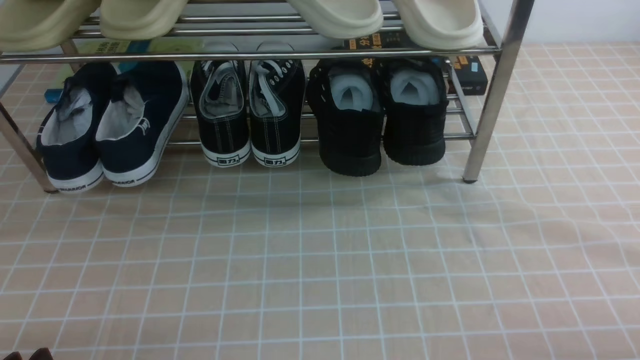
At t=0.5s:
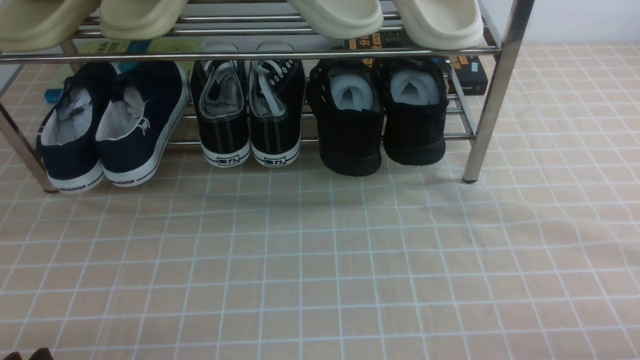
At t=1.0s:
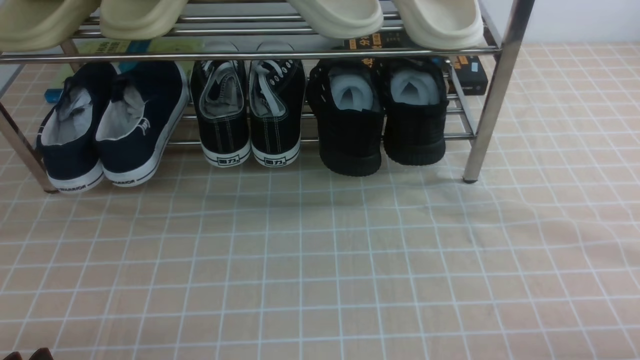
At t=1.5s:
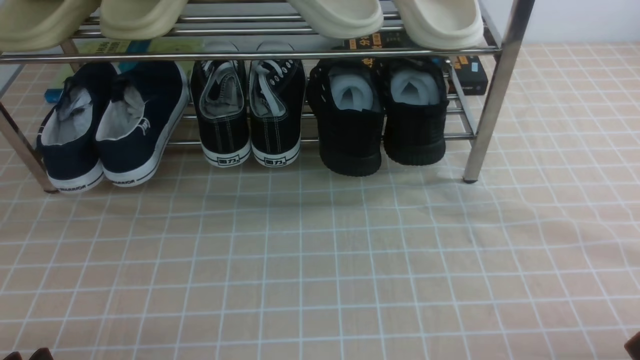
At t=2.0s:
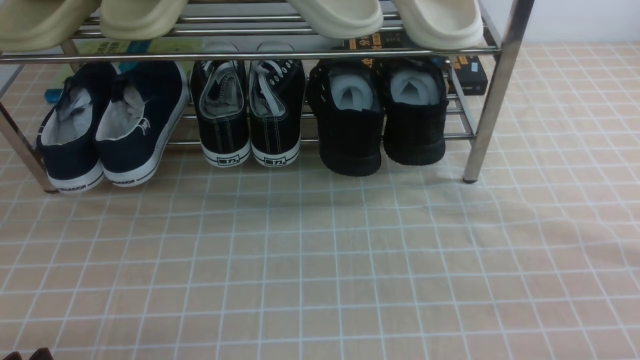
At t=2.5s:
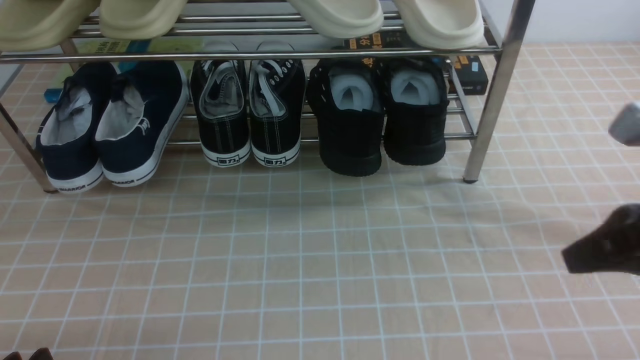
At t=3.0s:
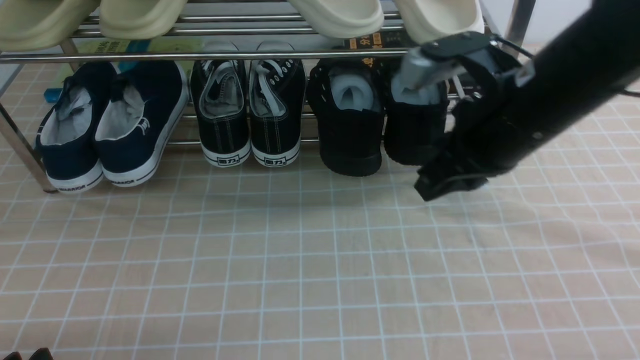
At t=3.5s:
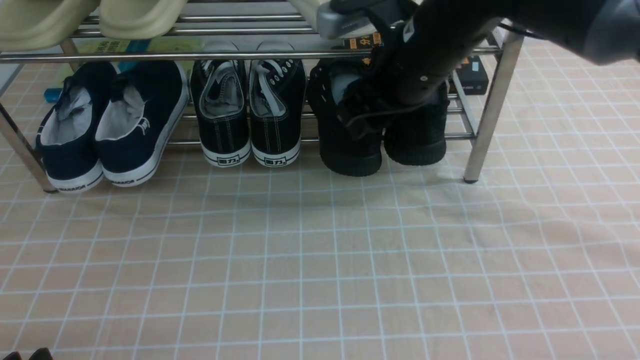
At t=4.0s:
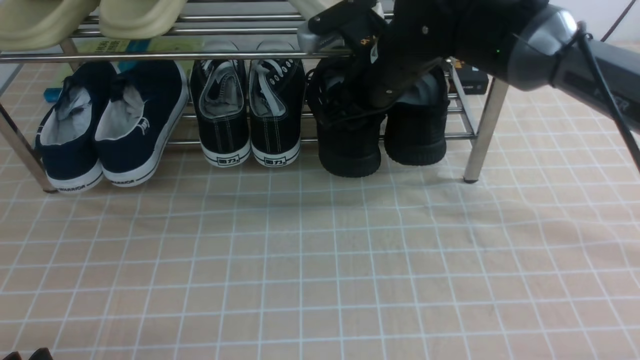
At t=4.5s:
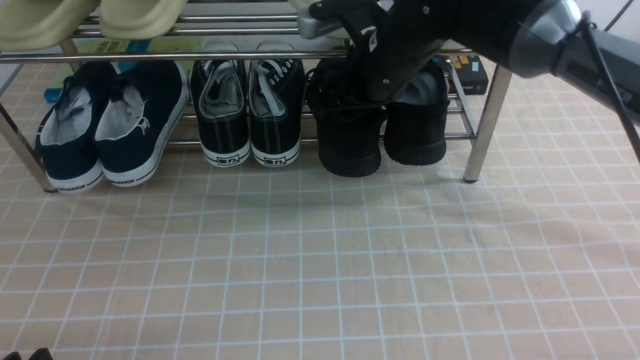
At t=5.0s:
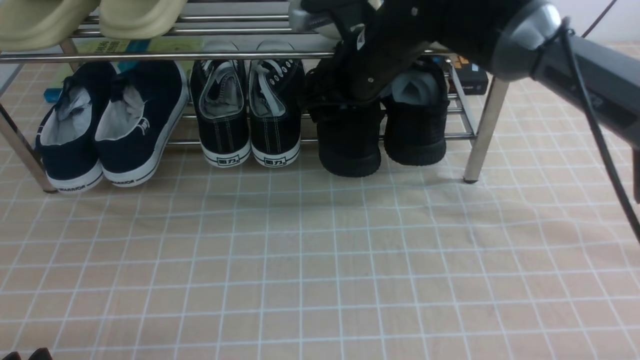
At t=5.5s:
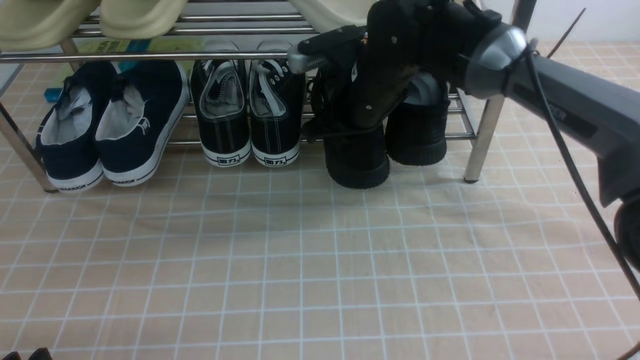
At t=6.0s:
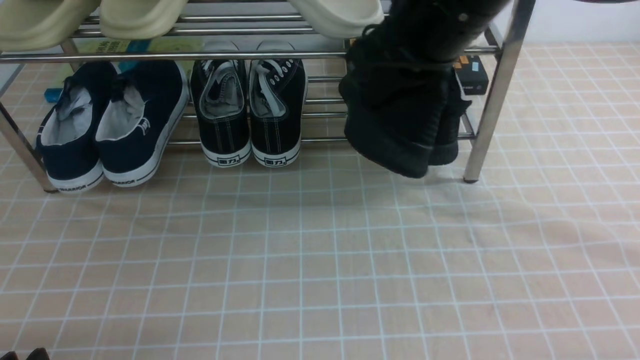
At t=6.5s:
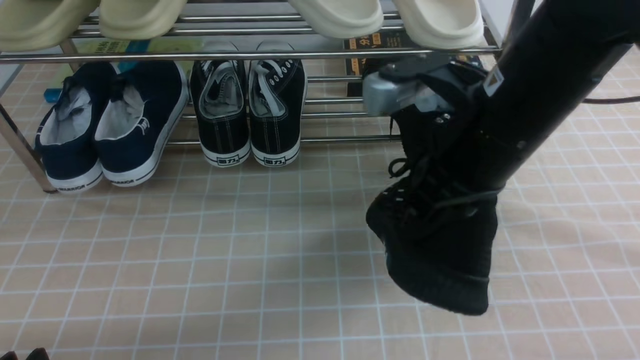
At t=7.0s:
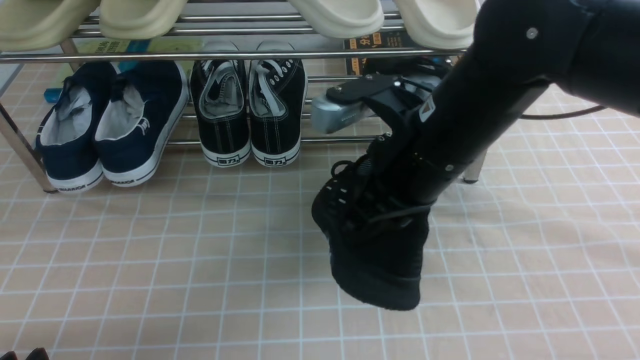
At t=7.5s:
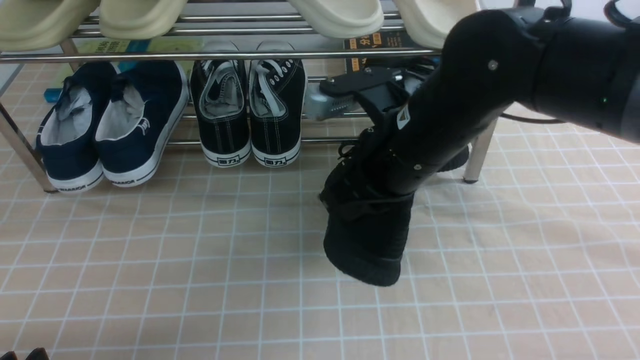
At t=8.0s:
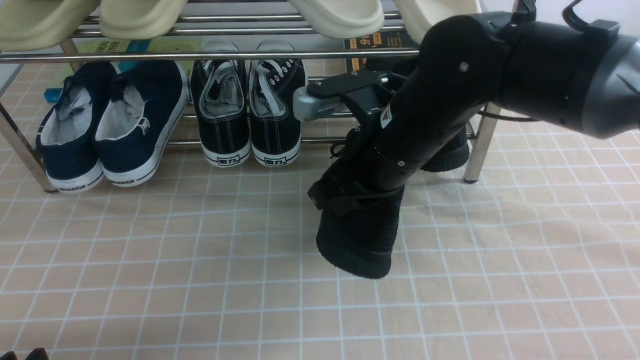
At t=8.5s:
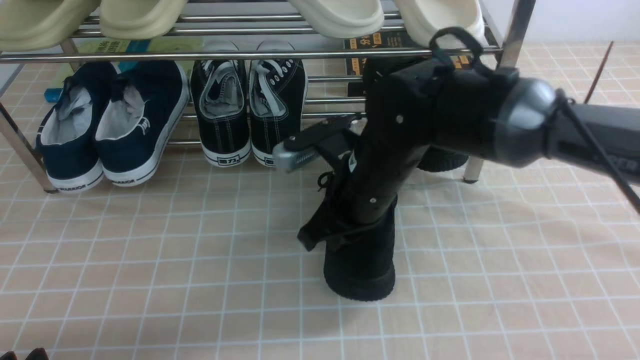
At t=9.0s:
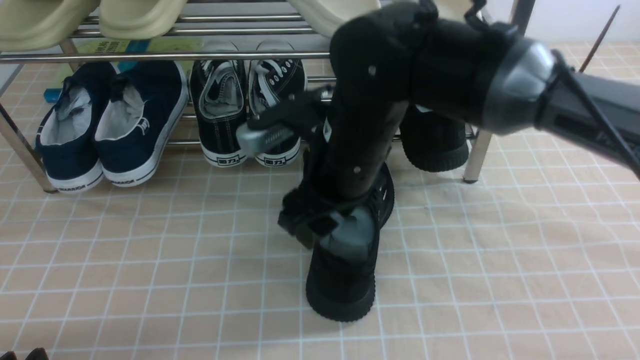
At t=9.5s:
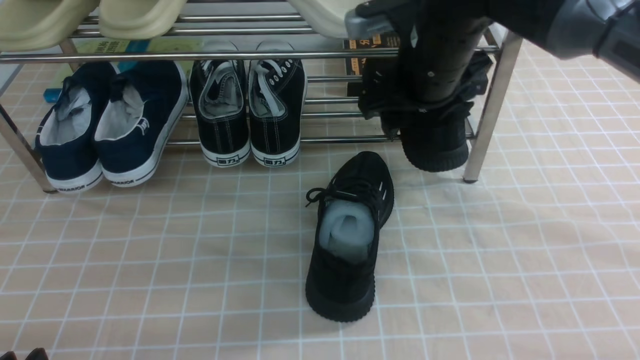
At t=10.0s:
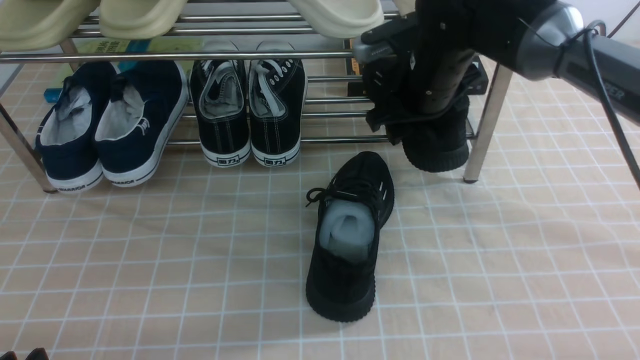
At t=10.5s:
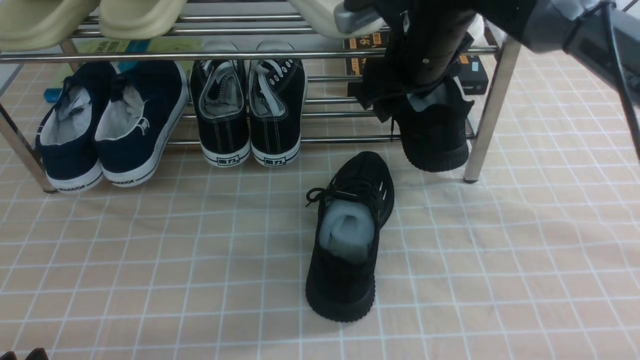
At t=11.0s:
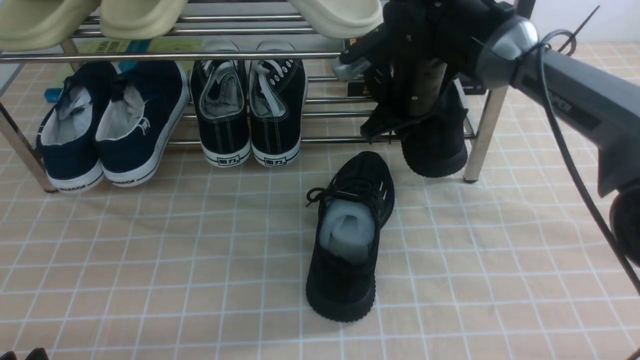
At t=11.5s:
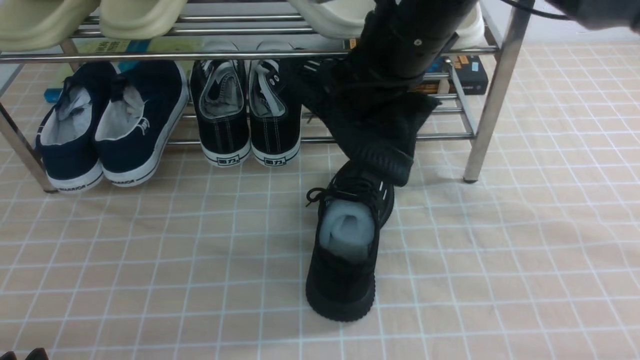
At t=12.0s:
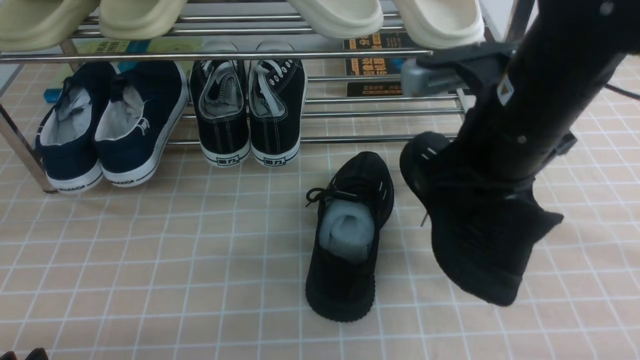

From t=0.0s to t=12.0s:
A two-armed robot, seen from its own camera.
Step, from t=0.0s to t=5.0s: use the right arm to clamp a shoe on the right side of the shoe rack.
Step, from t=5.5s to t=8.5s: use the right arm to take out the clamped shoe from the shoe rack and put it down.
Step, from t=9.0s to t=11.0s: use the right arm to clamp a shoe on the right side of the shoe rack.
From t=2.0s to t=4.0s: The right gripper is displaced forward and to the left by about 40 cm, and opens its fingers.
From t=4.0s to t=6.0s: The right gripper heads upward and backward, covering some 10 cm, and closes.
From t=6.0s to t=8.0s: The right gripper shifts roughly 10 cm downward.
From t=8.0s to t=10.0s: The right gripper goes roughly 10 cm forward, and opens.
From t=10.0s to t=12.0s: The right gripper goes approximately 15 cm backward and upward, and closes.

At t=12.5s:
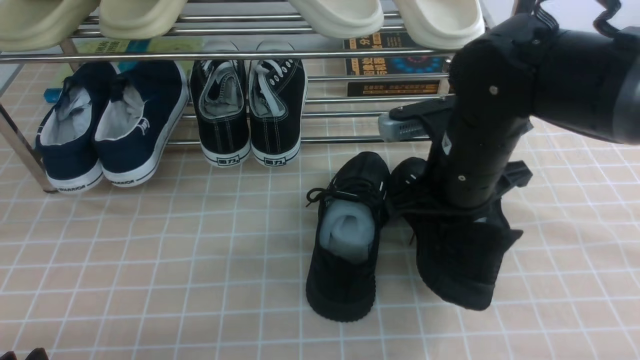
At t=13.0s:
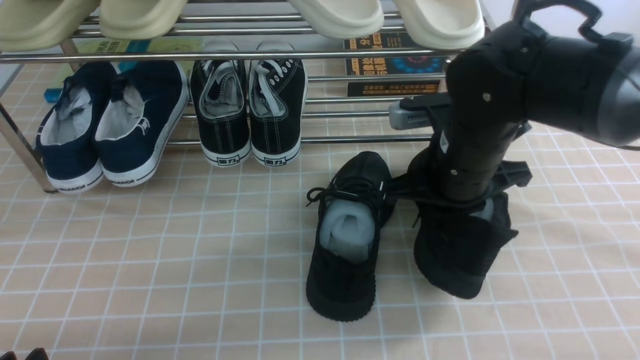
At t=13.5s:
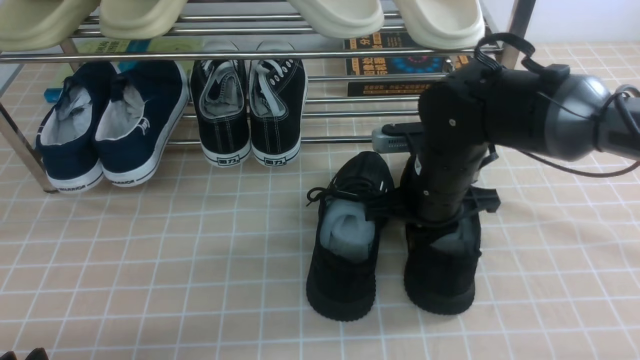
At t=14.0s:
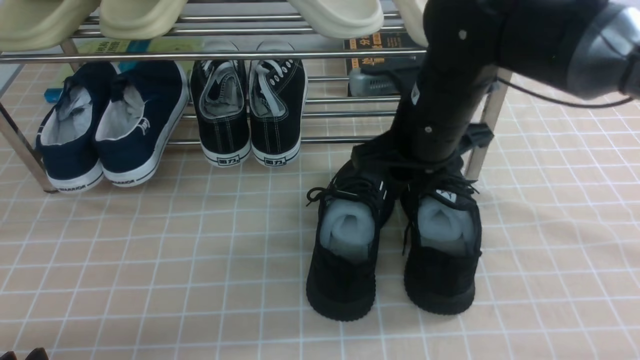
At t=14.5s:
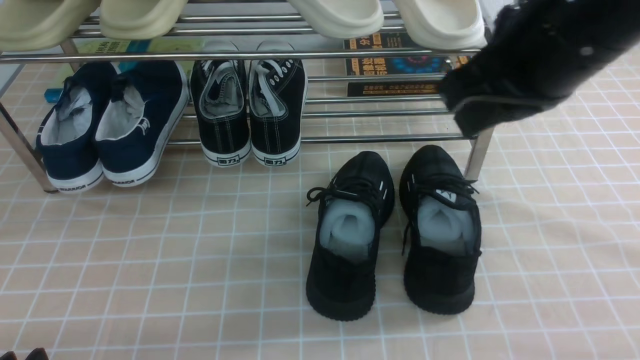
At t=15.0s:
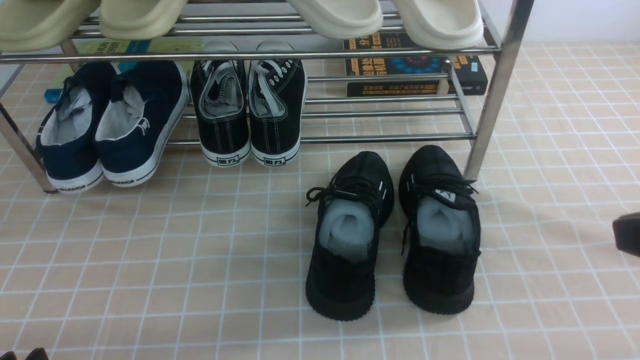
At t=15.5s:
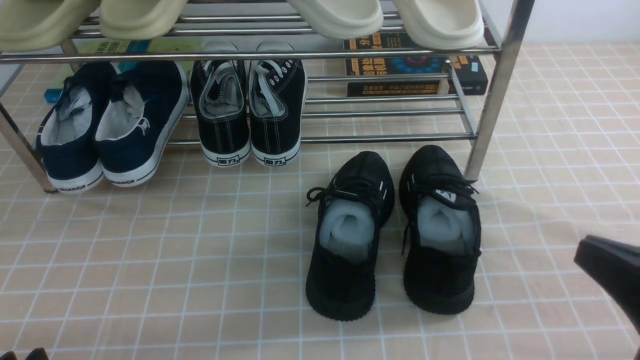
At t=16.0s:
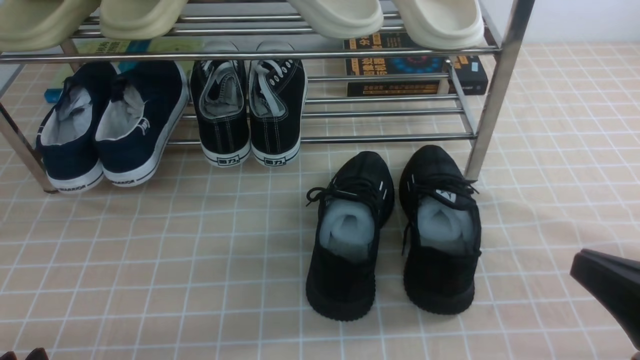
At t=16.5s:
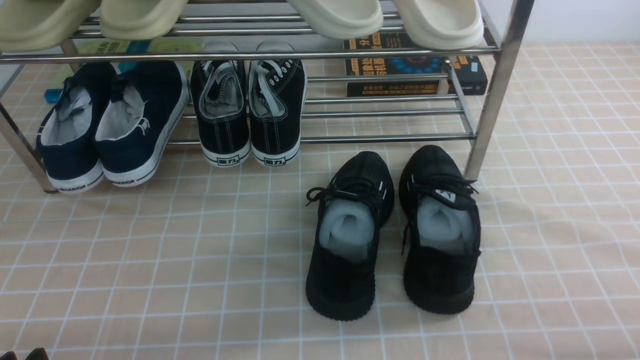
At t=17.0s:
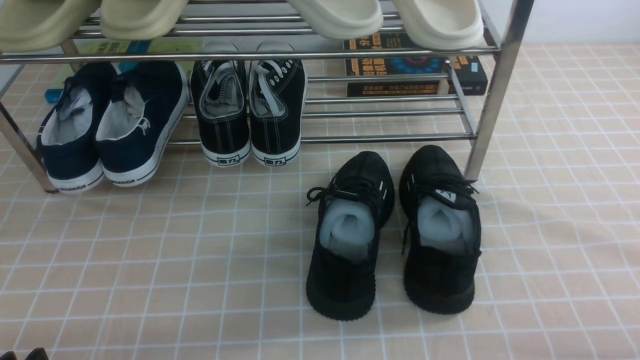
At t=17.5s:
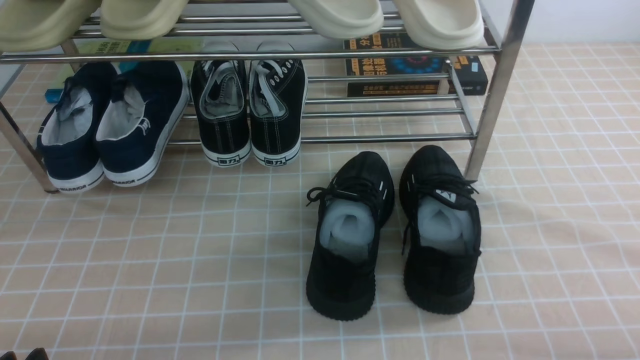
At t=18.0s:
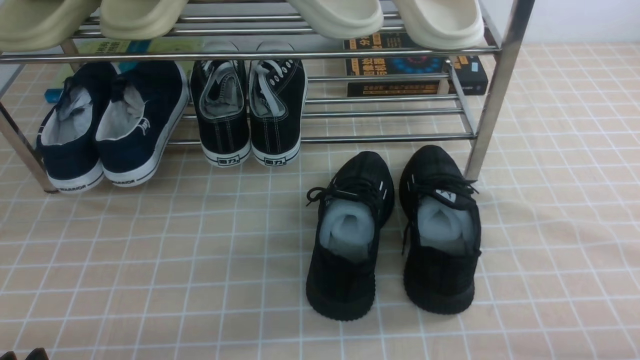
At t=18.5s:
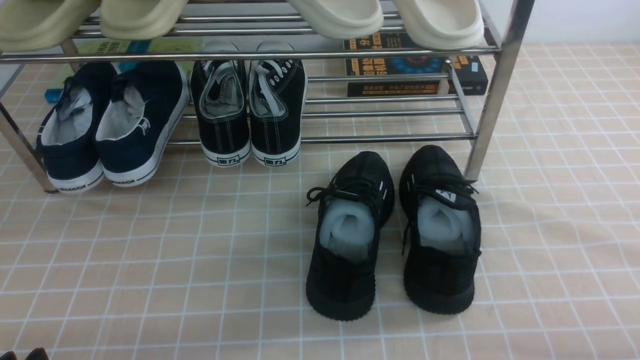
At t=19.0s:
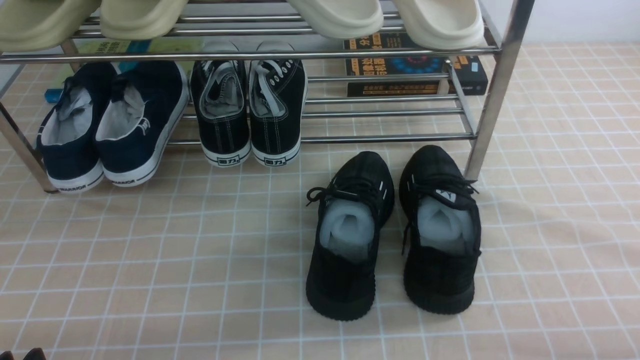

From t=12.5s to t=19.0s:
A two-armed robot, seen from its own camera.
Step, from t=12.5s to t=14.5s: use the right arm to take out the clamped shoe from the shoe rack and put it down.
From t=12.5s to t=14.5s: The right gripper heads upward, covering about 10 cm, and opens, then closes once more.
From t=14.5s to t=17.0s: The right gripper shifts approximately 35 cm downward, backward and to the right.
From t=17.0s to t=19.0s: Neither gripper changes place.
